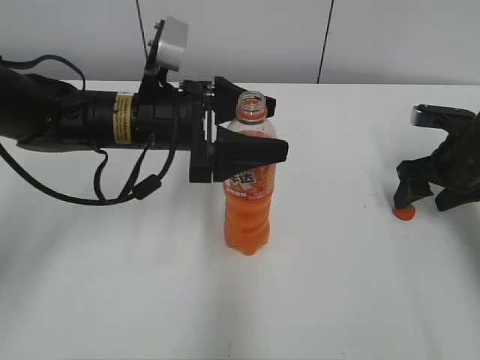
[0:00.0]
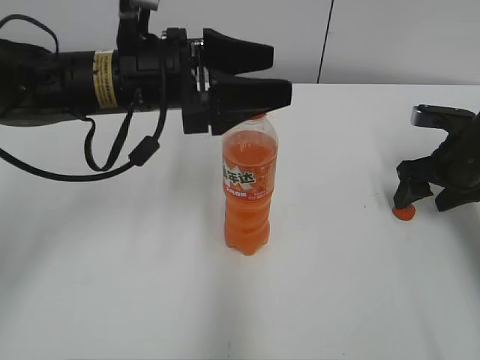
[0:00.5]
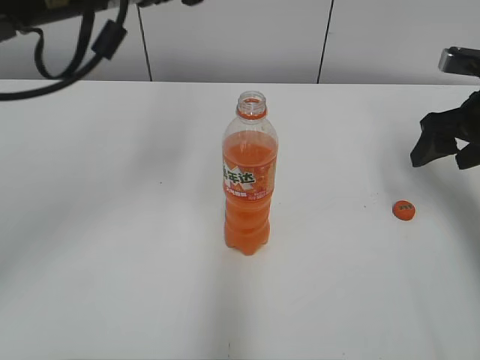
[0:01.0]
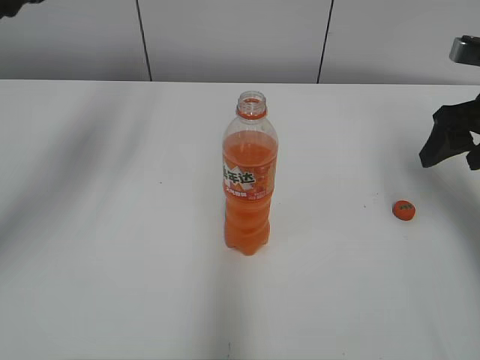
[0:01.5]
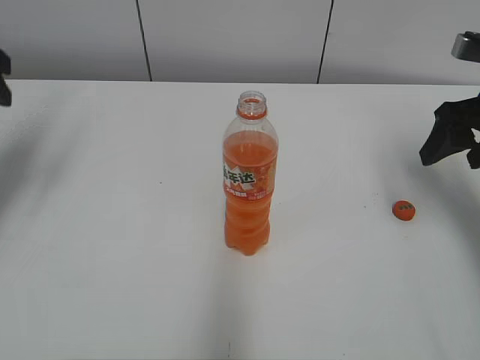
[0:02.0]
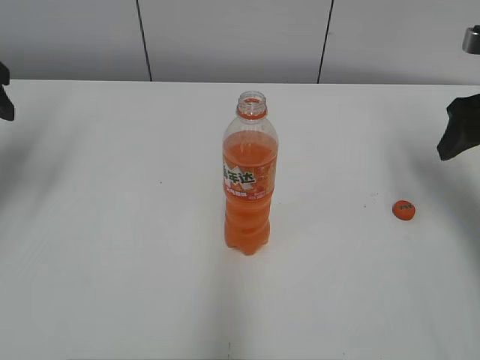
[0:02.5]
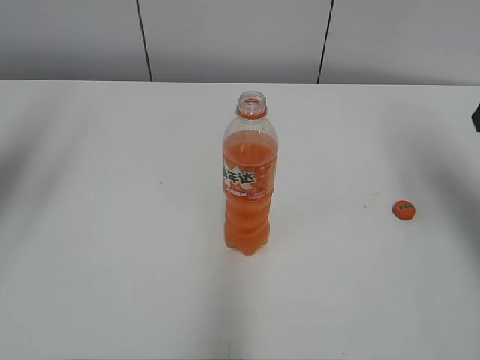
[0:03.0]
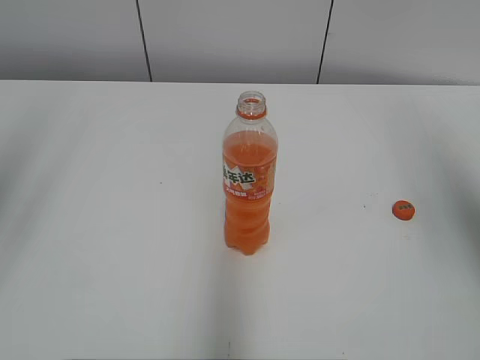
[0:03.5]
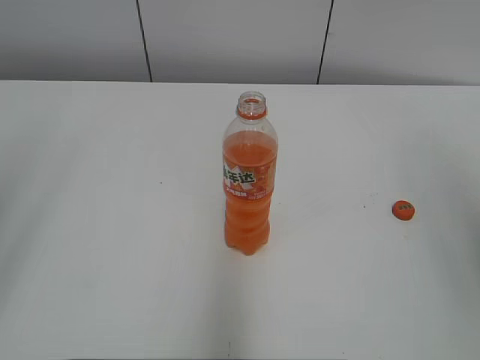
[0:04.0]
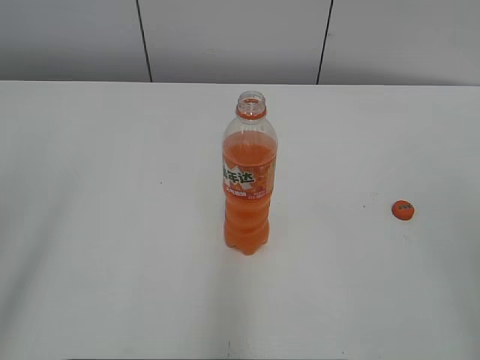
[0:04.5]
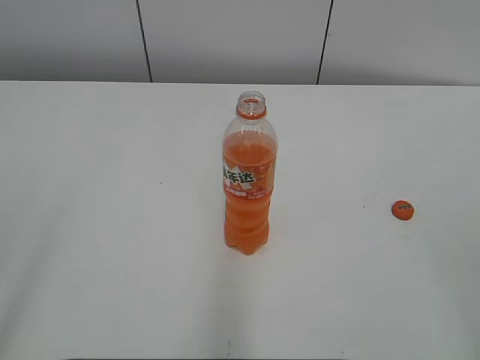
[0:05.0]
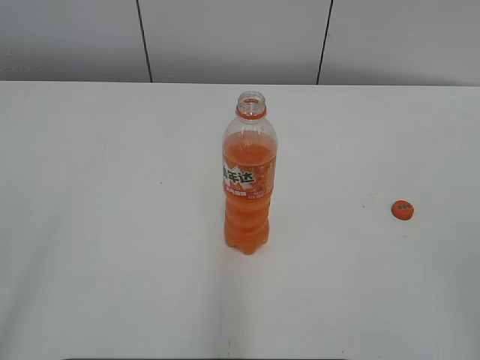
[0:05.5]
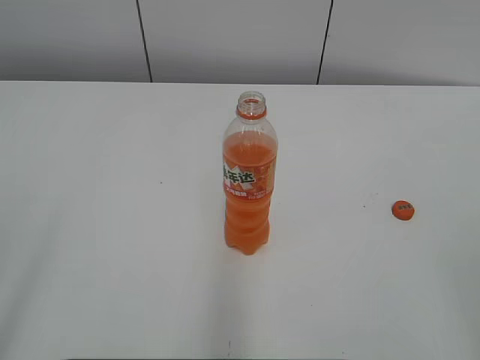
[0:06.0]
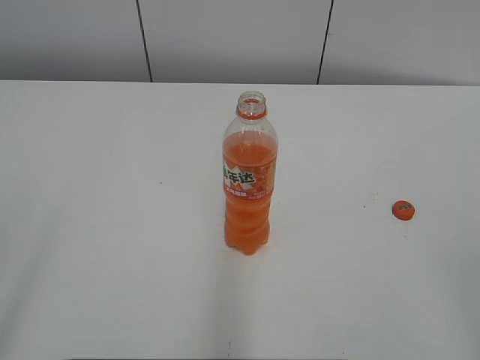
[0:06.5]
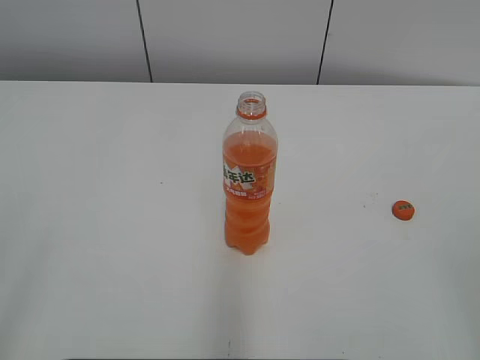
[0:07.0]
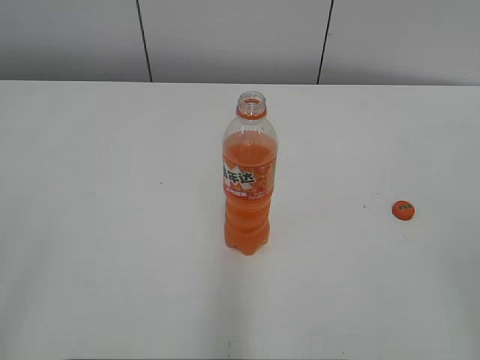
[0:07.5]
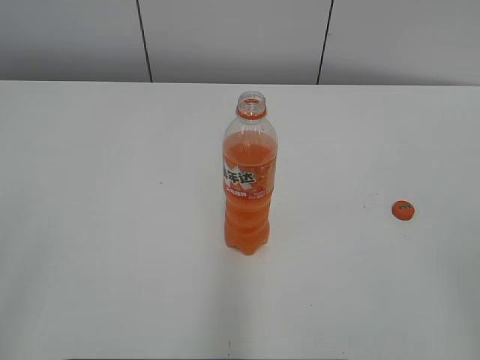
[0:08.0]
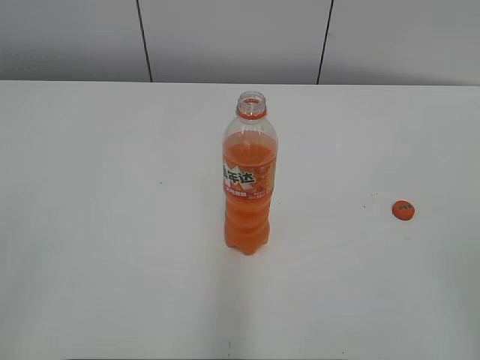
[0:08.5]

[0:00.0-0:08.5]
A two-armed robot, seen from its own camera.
0:00.0 to 0:02.0: The right gripper goes about 10 cm upward. Meanwhile the left gripper shifts about 25 cm to the left and upward.
0:02.0 to 0:04.0: The two grippers go approximately 25 cm backward and upward.

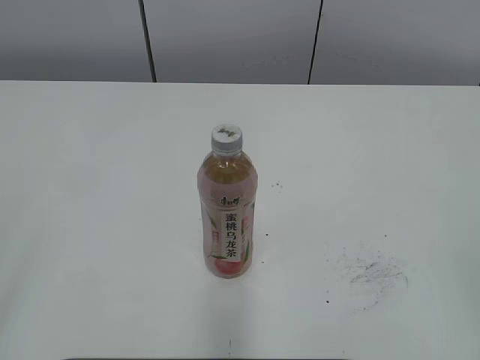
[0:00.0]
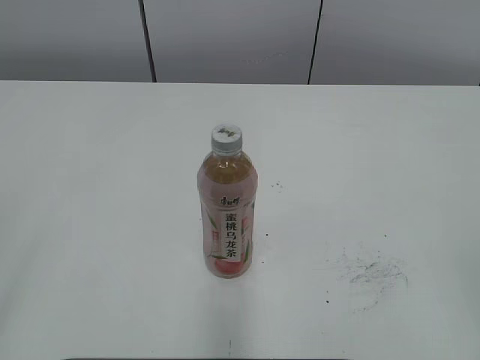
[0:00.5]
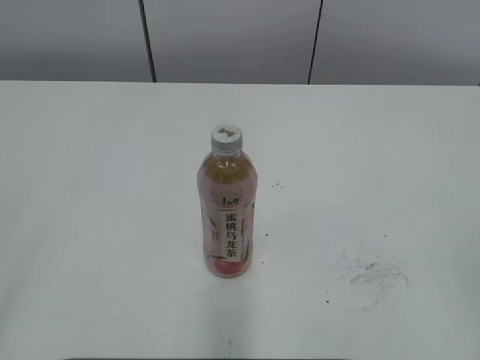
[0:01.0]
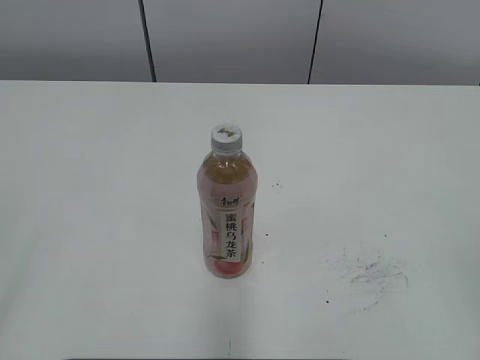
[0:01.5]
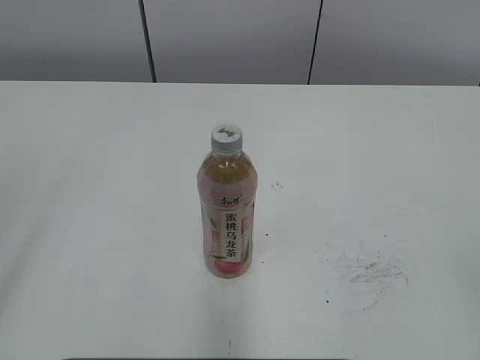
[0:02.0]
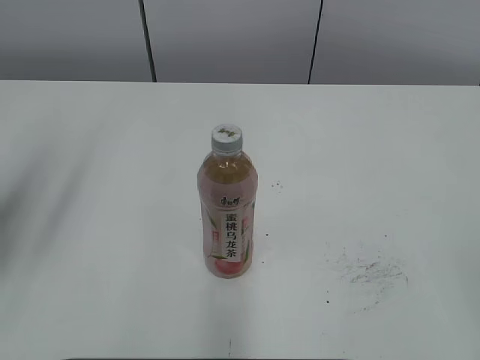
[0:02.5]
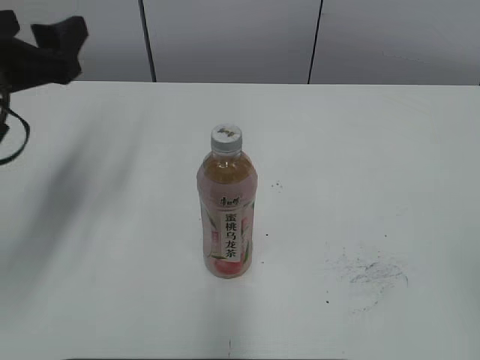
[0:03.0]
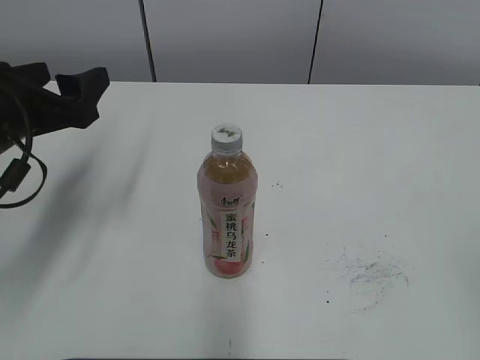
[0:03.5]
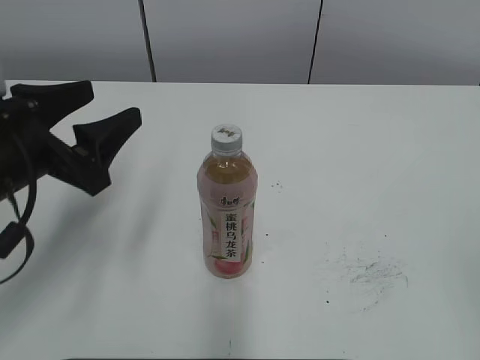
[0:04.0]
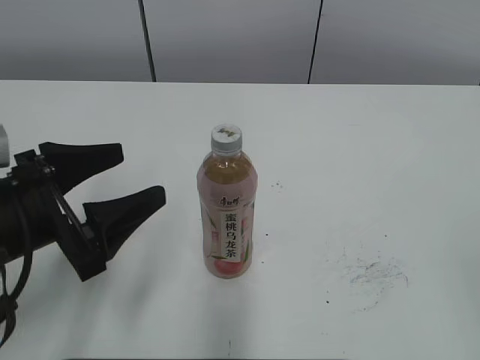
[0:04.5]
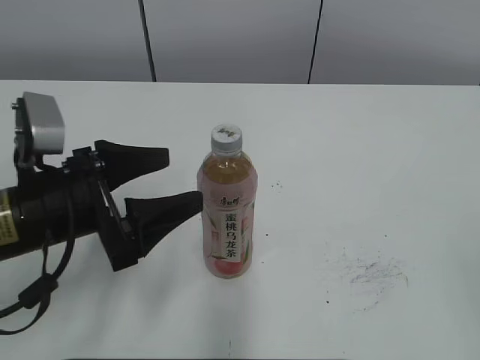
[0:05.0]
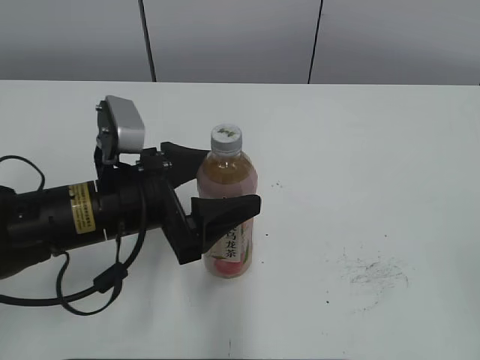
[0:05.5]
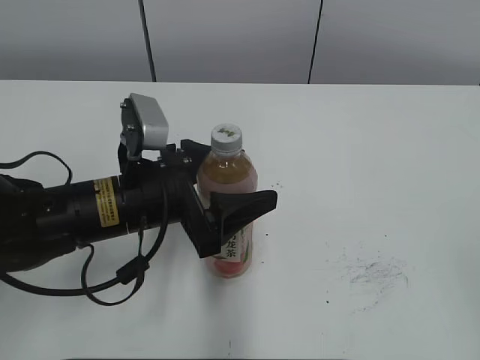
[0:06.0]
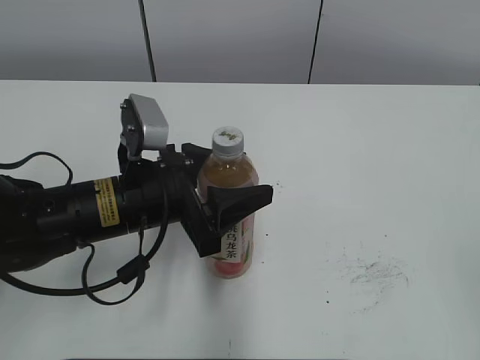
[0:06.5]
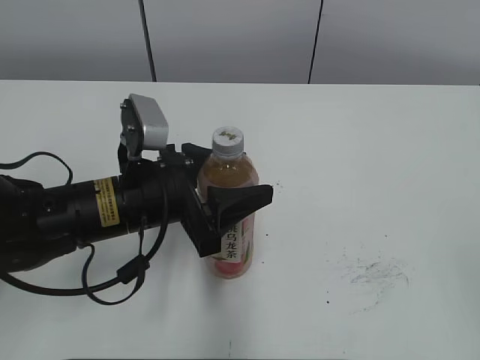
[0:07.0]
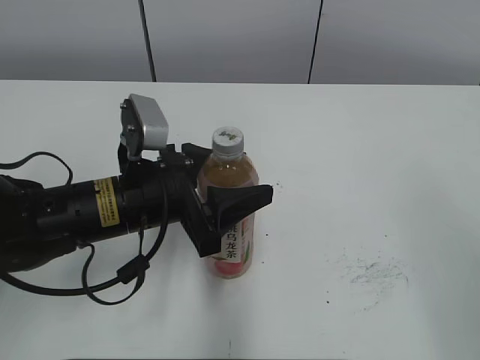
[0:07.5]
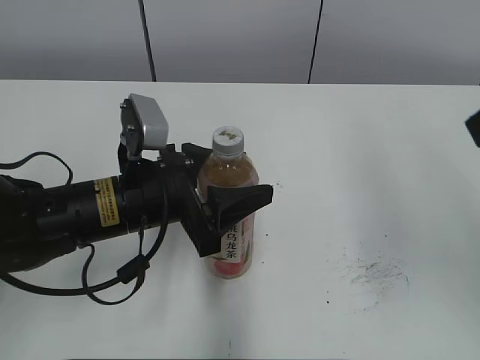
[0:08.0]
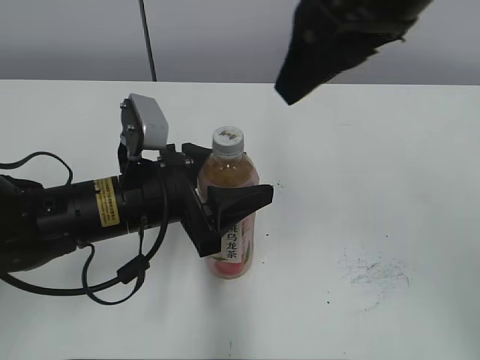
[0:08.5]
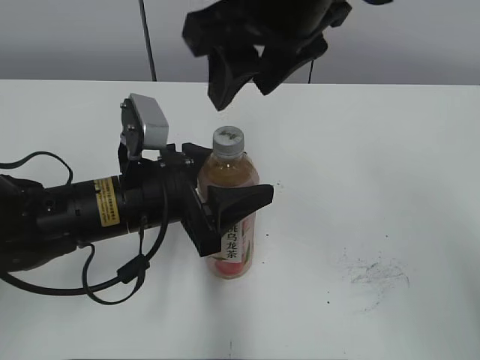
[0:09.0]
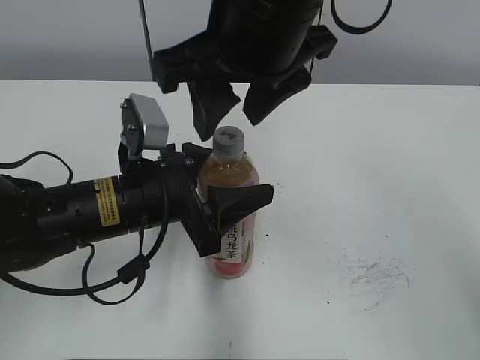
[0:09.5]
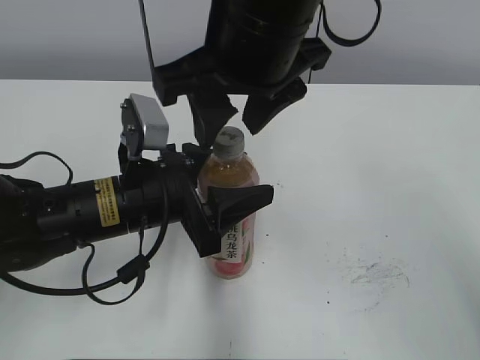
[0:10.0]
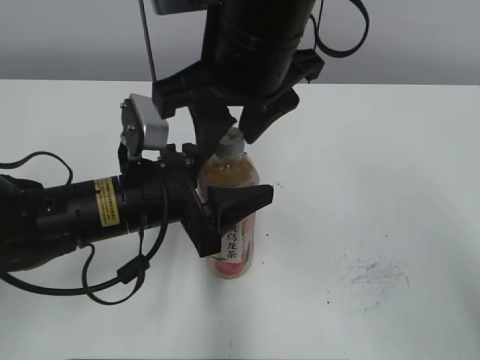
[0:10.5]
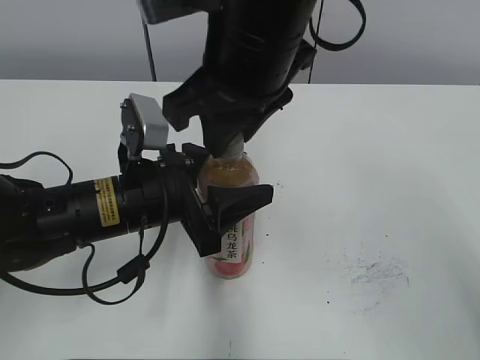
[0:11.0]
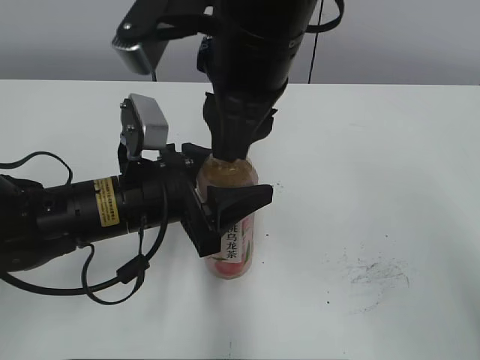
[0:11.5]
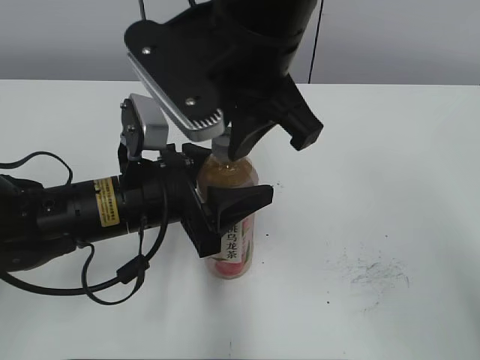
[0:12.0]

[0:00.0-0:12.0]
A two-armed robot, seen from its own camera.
Step, 0:00.0 to 0:06.5: Grab the Peach Oolong Tea with the left hand.
0:02.0 to 0:04.0: The left gripper heads forward, downward and to the right, covering some 25 cm, and opens, then closes again.
0:04.0 to 0:06.0: The left gripper moves to the right and downward, some 10 cm, and opens up.
0:06.0 to 0:08.0: The left gripper closes its fingers. The right gripper is displaced forward, upward and to the left by approximately 20 cm.
0:08.0 to 0:10.0: The right gripper goes some 25 cm to the left and forward.
0:10.0 to 0:12.0: The right gripper closes its fingers.

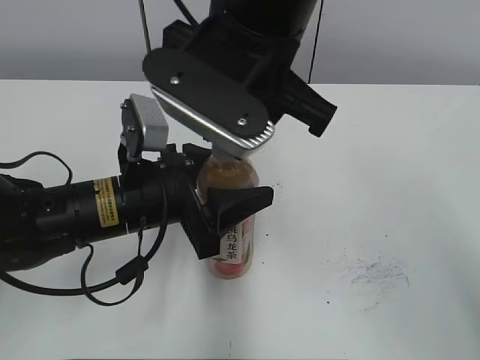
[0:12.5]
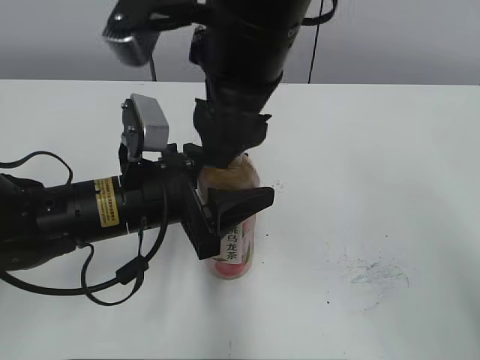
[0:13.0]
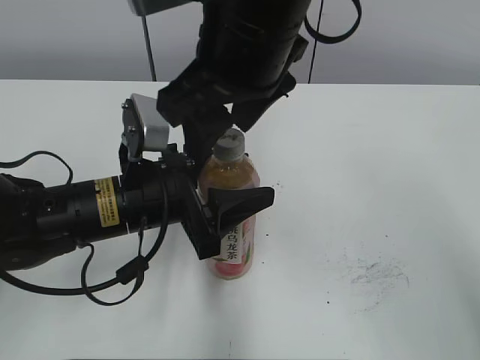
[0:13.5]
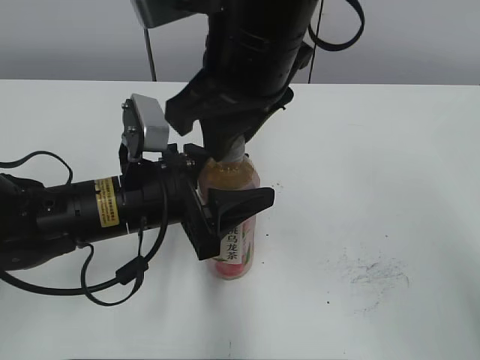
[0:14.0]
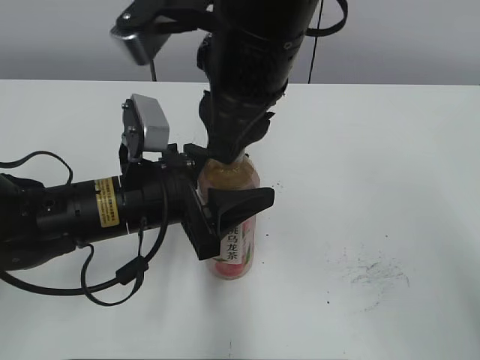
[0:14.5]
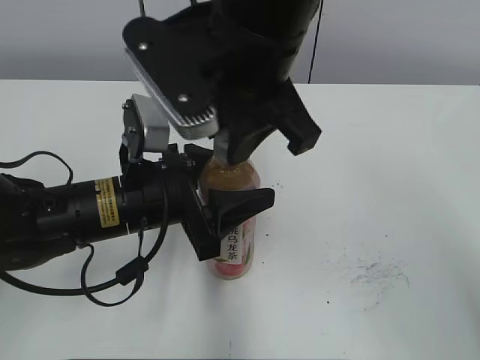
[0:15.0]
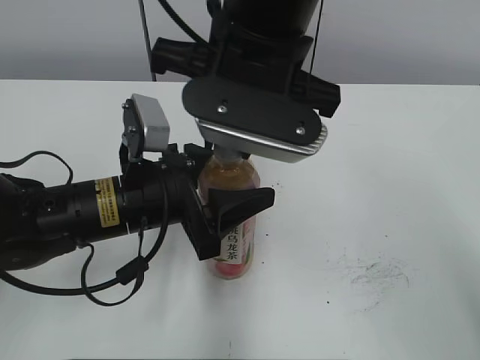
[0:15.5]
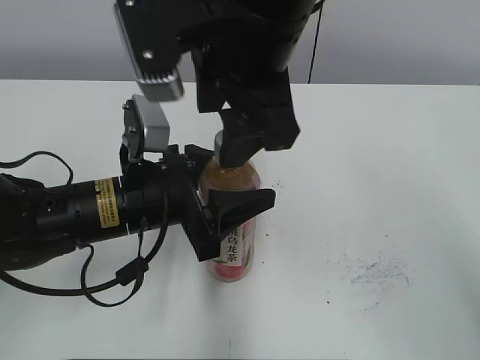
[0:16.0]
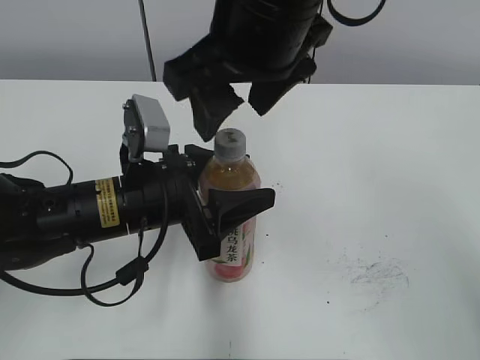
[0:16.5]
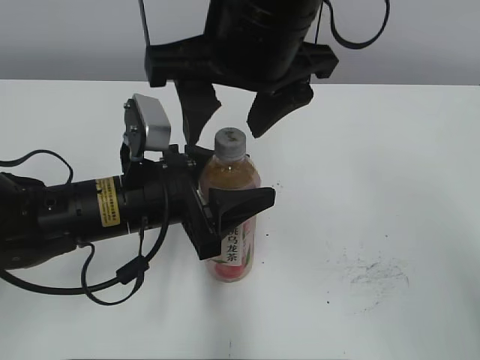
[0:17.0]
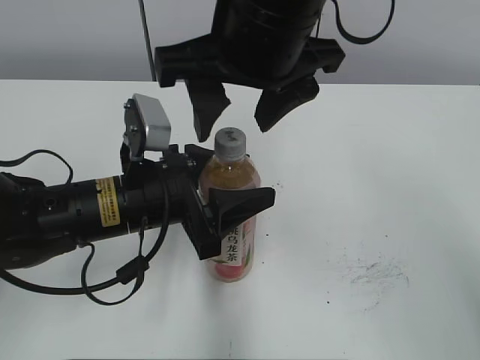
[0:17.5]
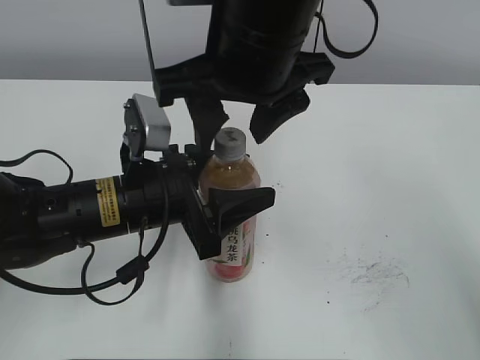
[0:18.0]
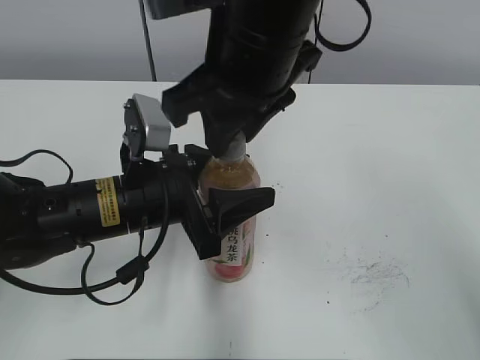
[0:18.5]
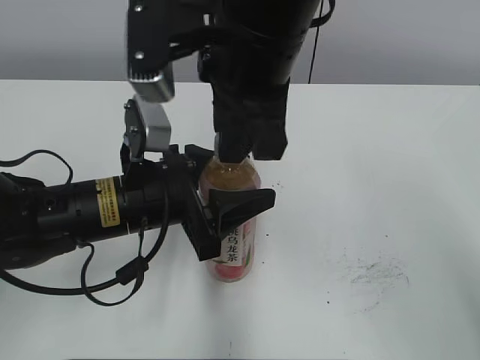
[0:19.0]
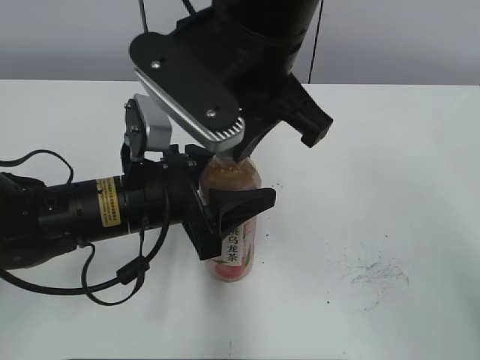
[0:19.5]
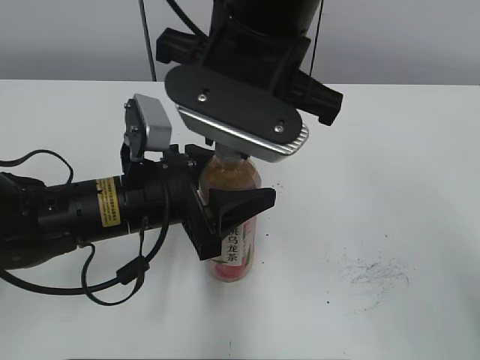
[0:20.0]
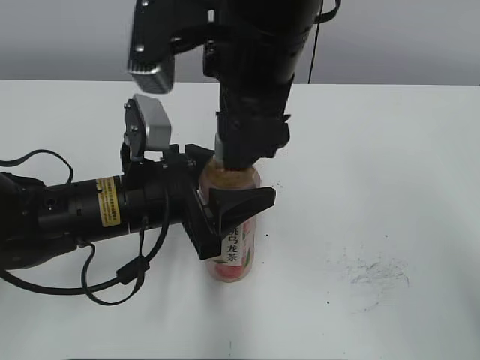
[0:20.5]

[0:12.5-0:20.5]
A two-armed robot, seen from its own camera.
0:12.5 to 0:14.5: The right gripper opens, then closes once more.
0:14.5 to 0:16.5: The right gripper opens up.
0:16.5 to 0:18.5: The right gripper closes up.
0:18.5 to 0:20.5: The right gripper opens its fingers.
